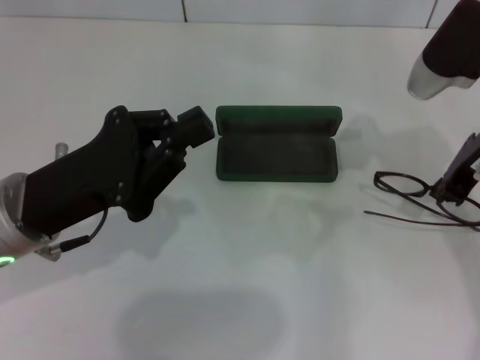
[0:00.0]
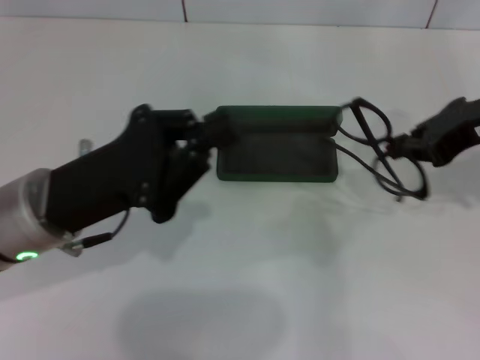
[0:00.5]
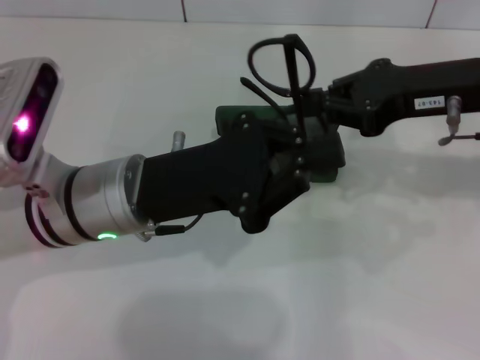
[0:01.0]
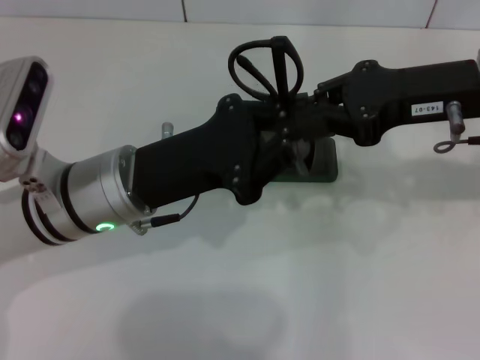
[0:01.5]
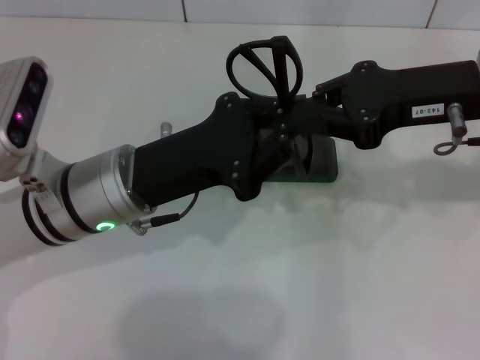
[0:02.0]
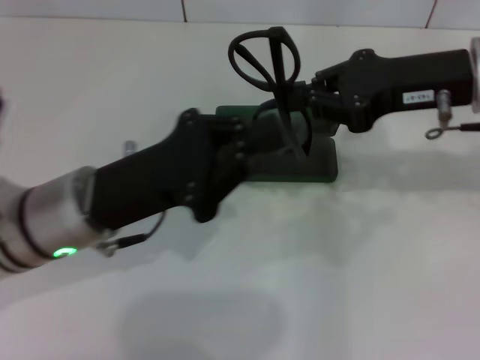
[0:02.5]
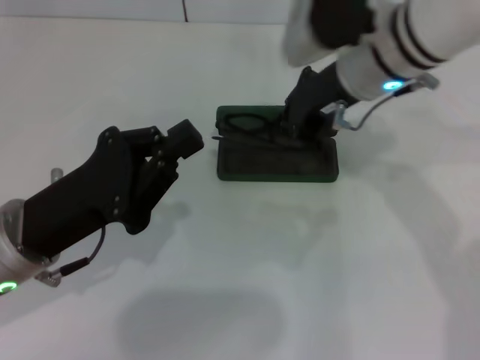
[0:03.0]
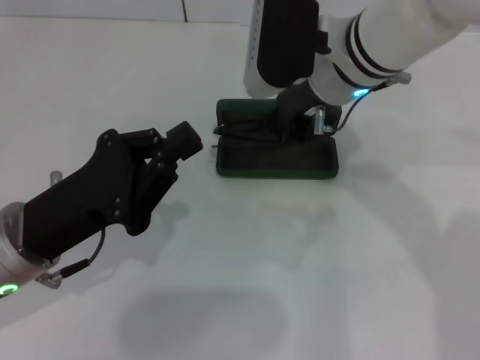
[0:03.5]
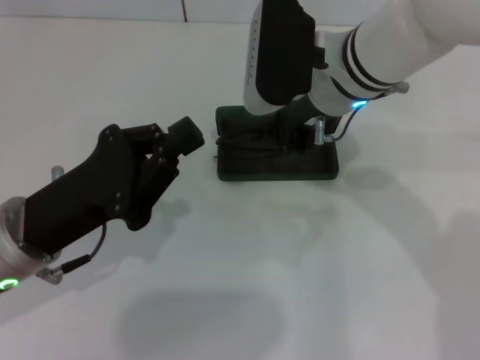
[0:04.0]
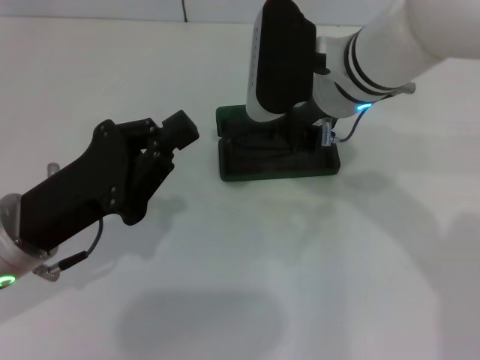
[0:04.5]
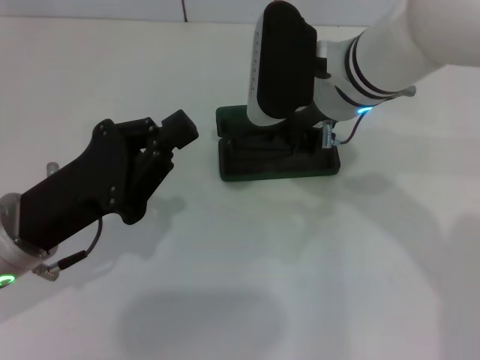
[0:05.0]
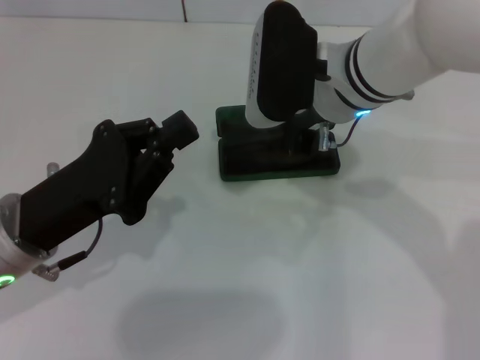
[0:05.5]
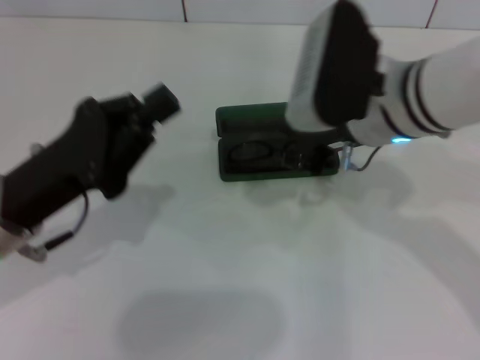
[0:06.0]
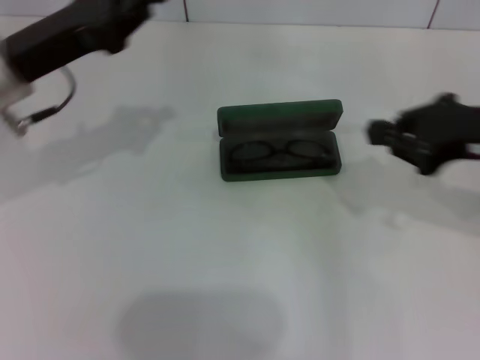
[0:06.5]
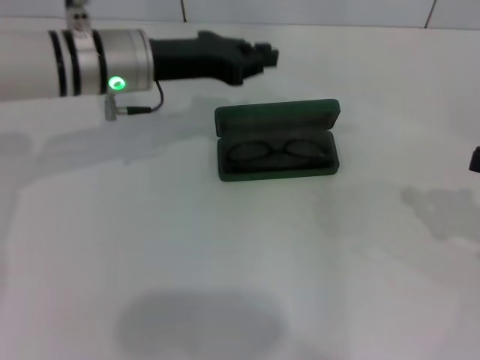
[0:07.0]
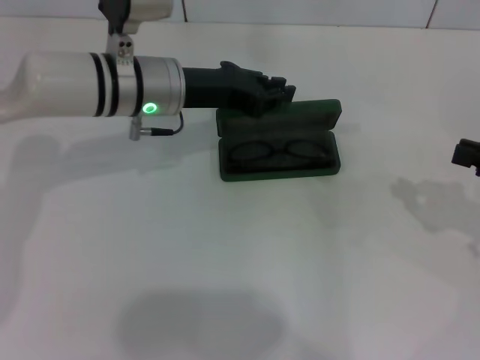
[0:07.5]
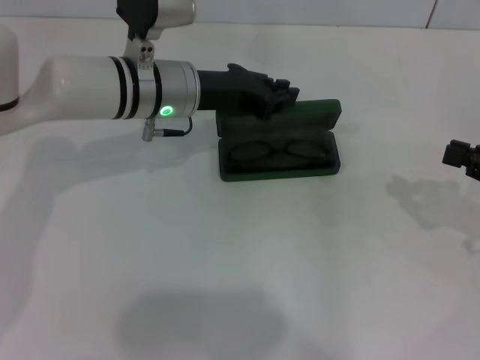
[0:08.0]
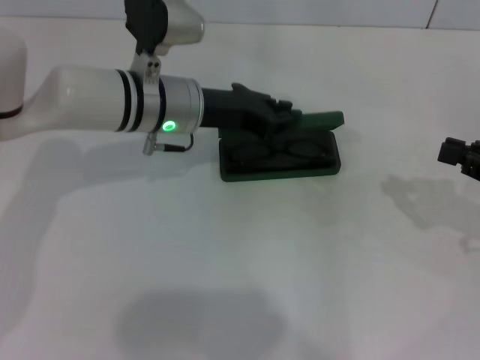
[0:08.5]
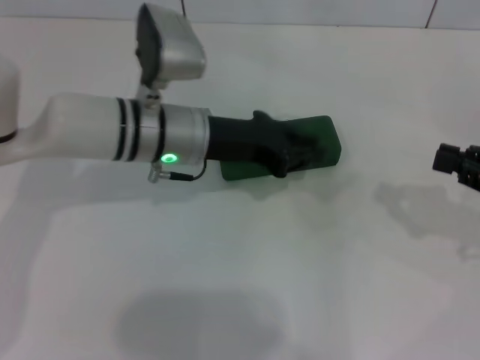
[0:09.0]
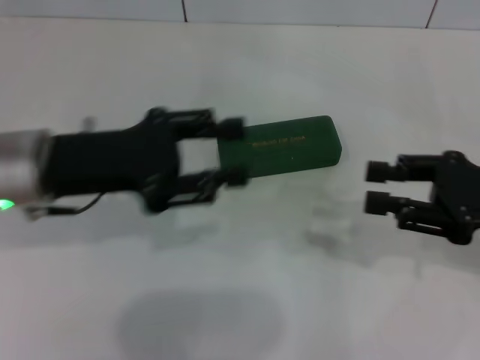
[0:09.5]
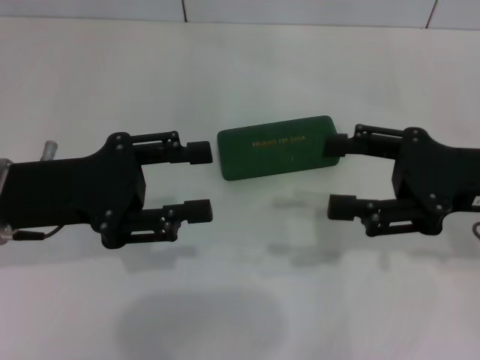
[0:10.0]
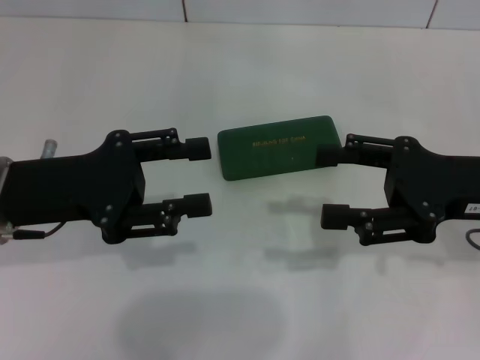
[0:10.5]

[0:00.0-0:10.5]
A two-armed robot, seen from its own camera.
Step, 0:00.0 to 0:02.0: Lift the glasses with your right hand.
Step, 0:02.5 to 0:05.5: Put the glasses into the case with your right hand.
Step, 0:06.0 to 0:08.5: Close the glasses case with your left hand.
0:00.0 to 0:02.0: The left gripper is displaced to the right by some 5 cm.
0:02.0 to 0:04.0: The left gripper heads to the left and backward, covering roughly 10 cm. The right gripper goes approximately 15 cm to the left.
0:04.0 to 0:06.5: The right gripper goes about 20 cm to the right and backward. The left gripper is displaced forward and upward by some 15 cm.
0:06.5 to 0:08.5: The two grippers go some 15 cm to the right and downward.
0:08.5 to 0:10.5: The right gripper is displaced to the left by some 10 cm, and opens its fingers, while the left gripper travels backward and to the left by some 20 cm, and opens its fingers.

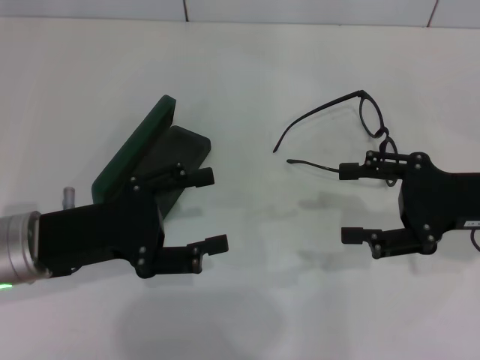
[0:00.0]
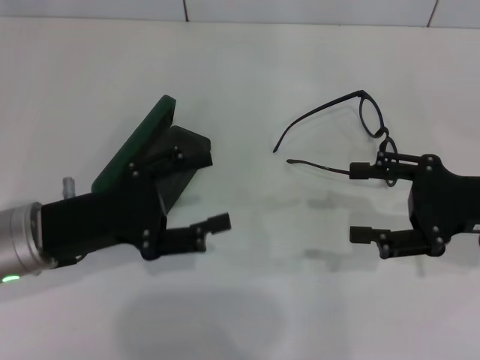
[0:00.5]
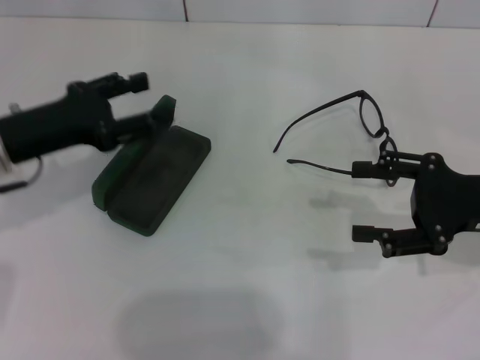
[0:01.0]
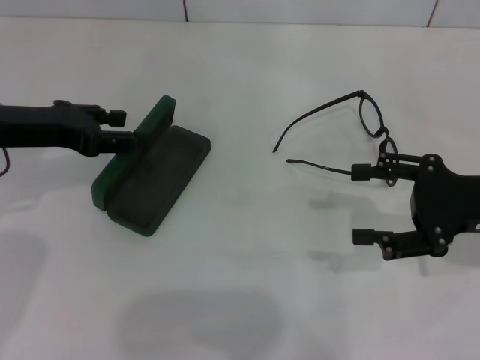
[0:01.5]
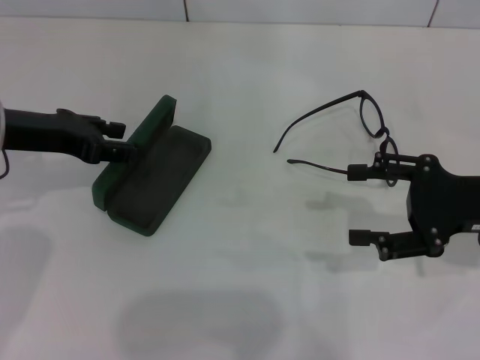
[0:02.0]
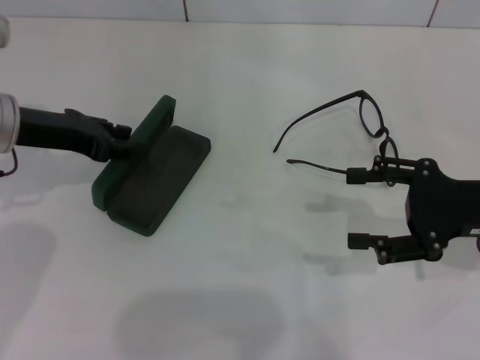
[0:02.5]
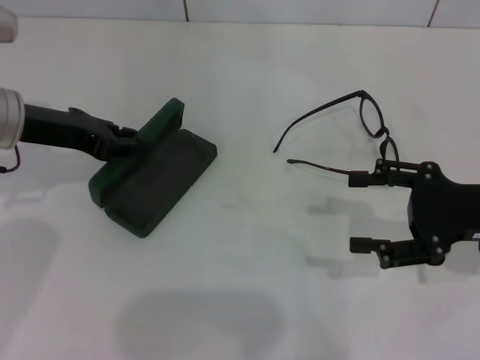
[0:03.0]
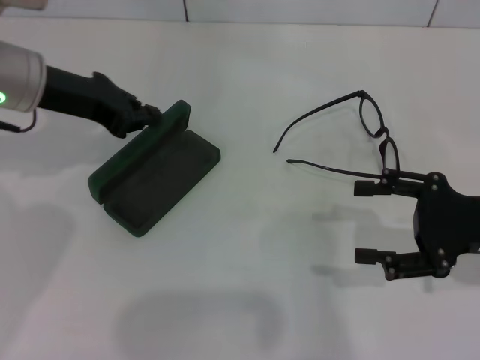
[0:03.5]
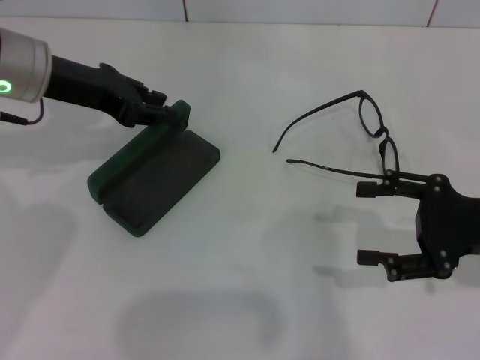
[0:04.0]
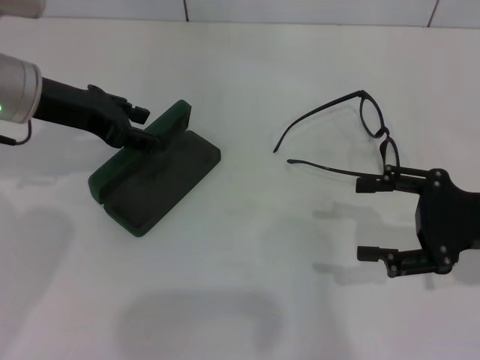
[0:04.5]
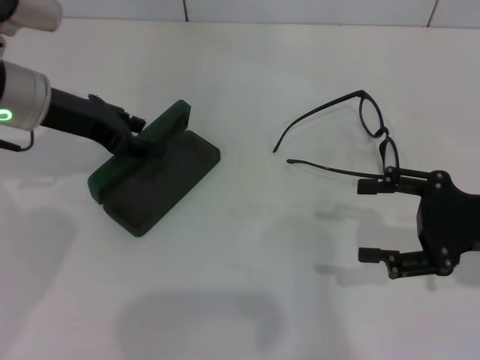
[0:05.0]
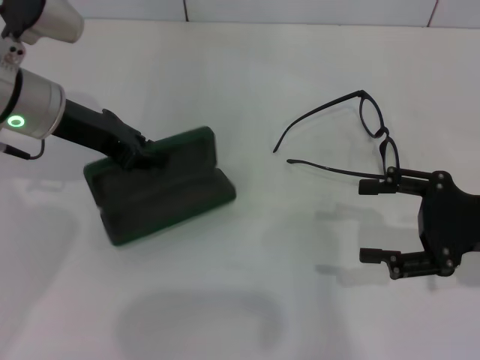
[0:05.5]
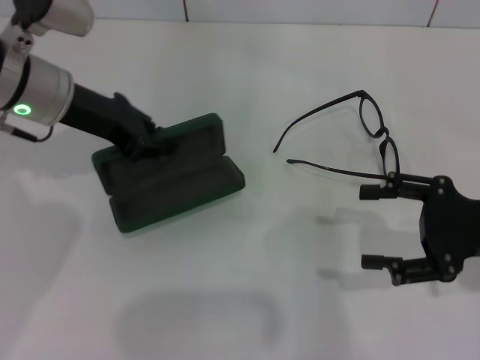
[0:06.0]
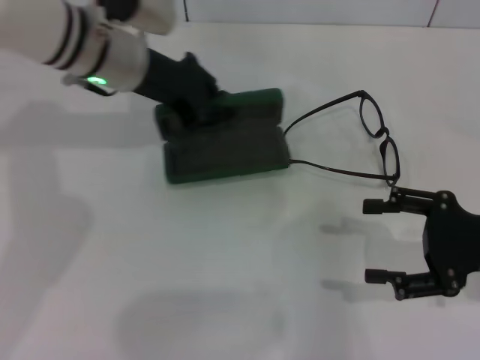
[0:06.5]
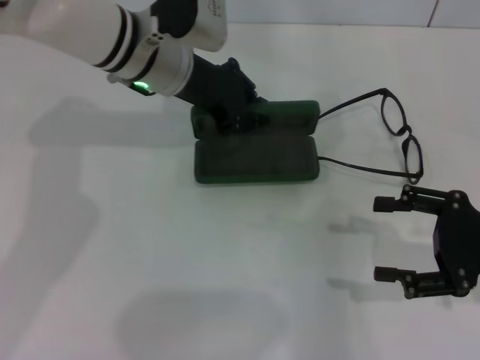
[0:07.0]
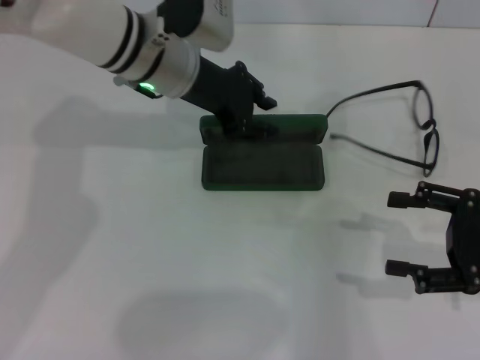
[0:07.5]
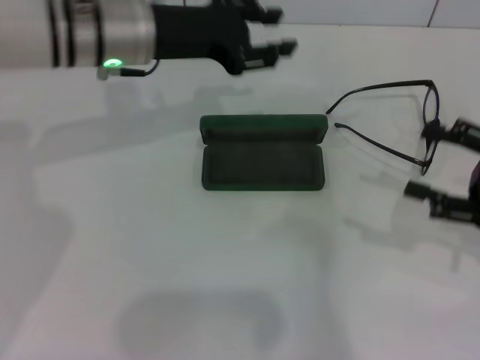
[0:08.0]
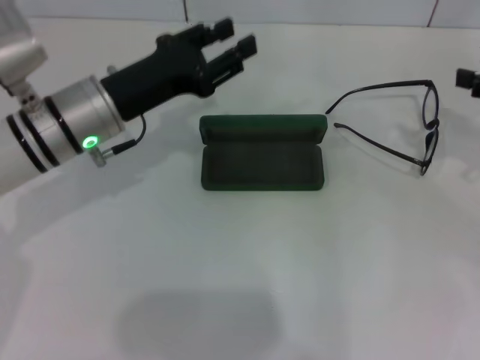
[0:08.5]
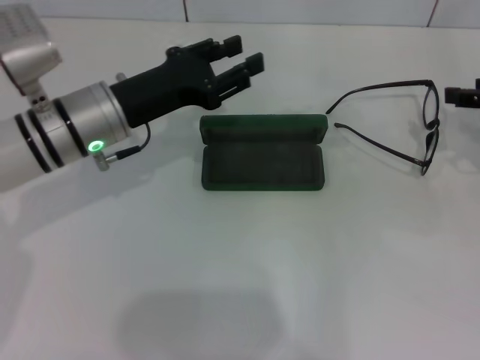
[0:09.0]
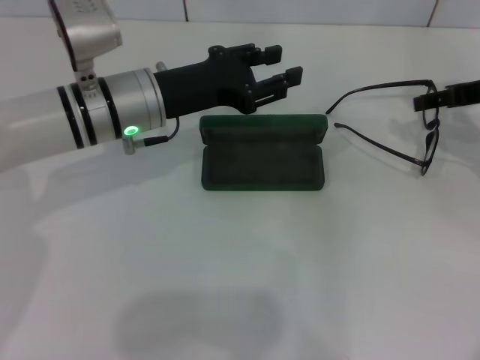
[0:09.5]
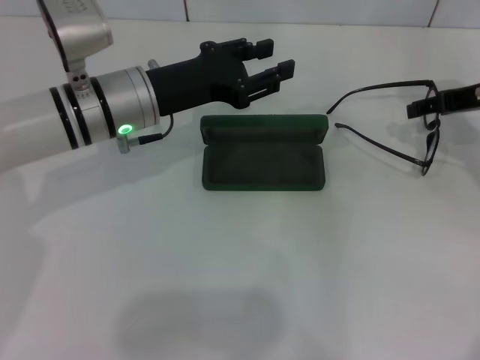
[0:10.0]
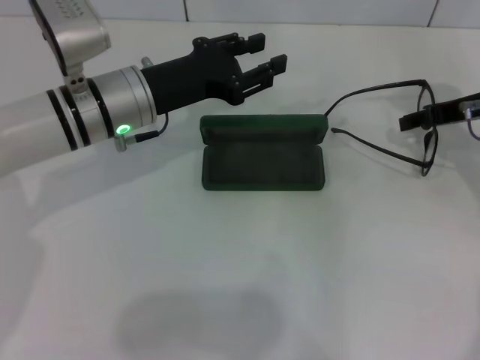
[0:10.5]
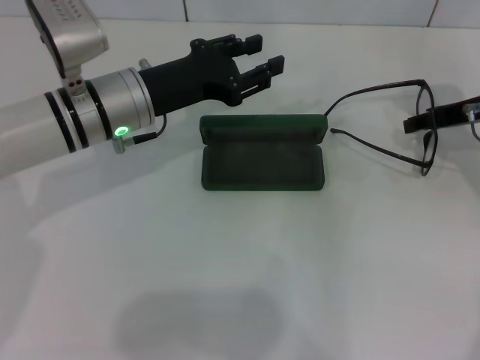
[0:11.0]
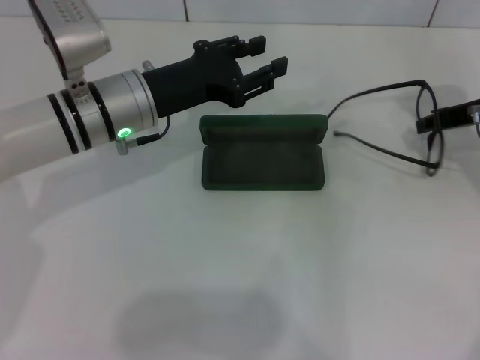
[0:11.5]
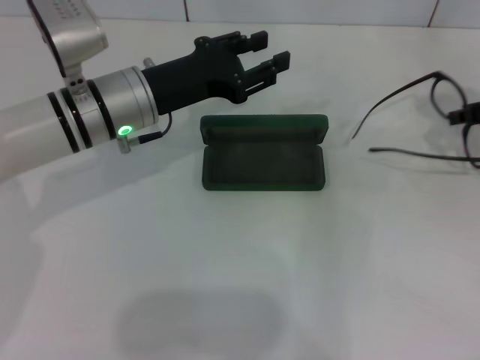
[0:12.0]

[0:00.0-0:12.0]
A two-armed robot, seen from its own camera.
Step, 0:00.0 to 0:05.0: Grab the glasses case with your left hand.
Step, 0:05.5 to 0:07.5: Place the glasses case in the center of the table with your left hand.
Step, 0:08.0 to 0:11.5: Grab the eyeglass frame with your right hand.
0:00.0 to 0:02.0: The left gripper travels forward and upward by some 10 cm.
0:02.0 to 0:04.0: The left gripper shifts by approximately 5 cm, and closes its fingers.
0:04.0 to 0:06.0: The left gripper opens, then closes again.
0:06.0 to 0:08.0: The left gripper goes about 5 cm to the right, and opens.
0:08.0 to 0:10.0: The right gripper travels forward by roughly 15 cm; the left gripper goes some 5 cm downward.
0:10.0 to 0:12.0: The right gripper closes up.

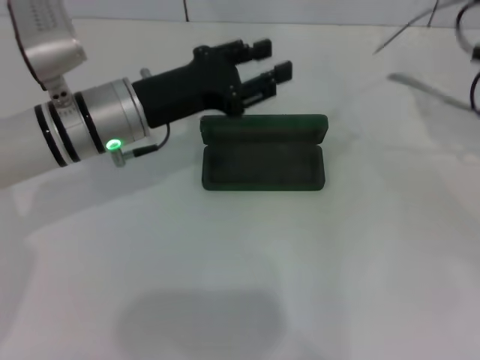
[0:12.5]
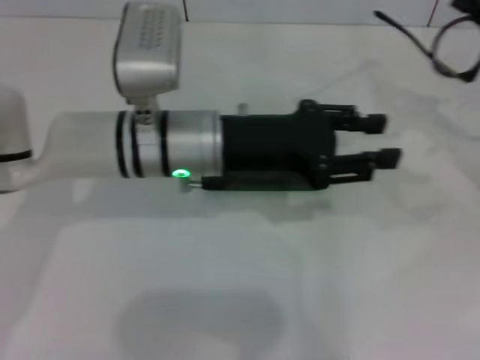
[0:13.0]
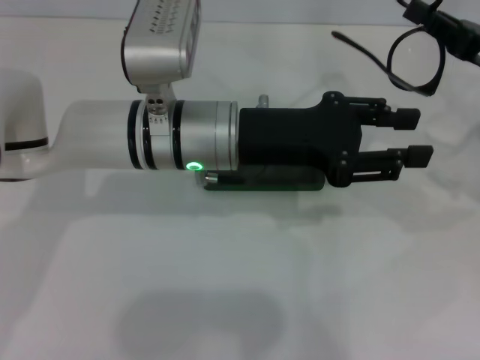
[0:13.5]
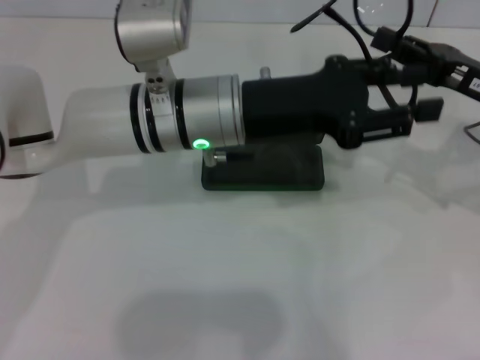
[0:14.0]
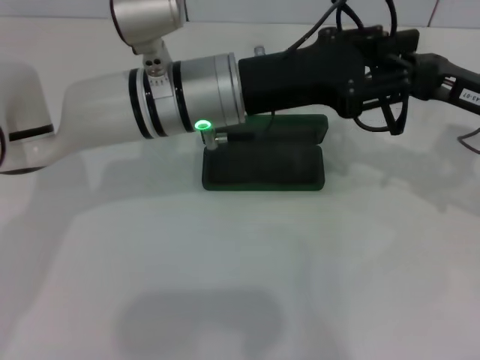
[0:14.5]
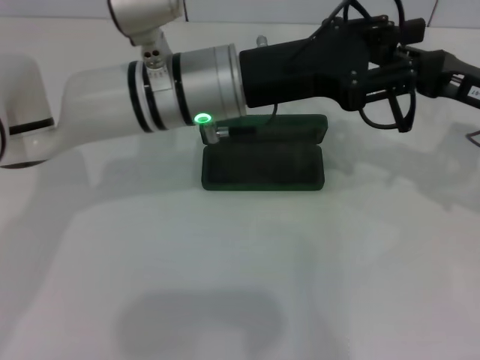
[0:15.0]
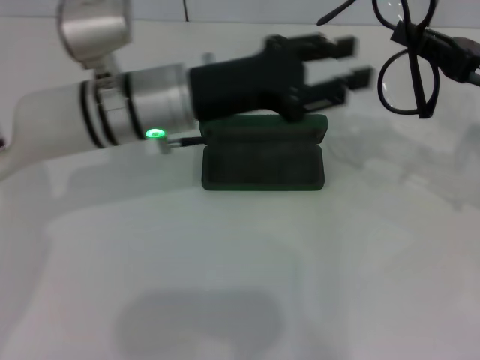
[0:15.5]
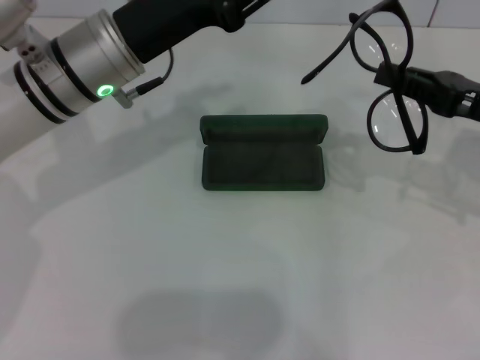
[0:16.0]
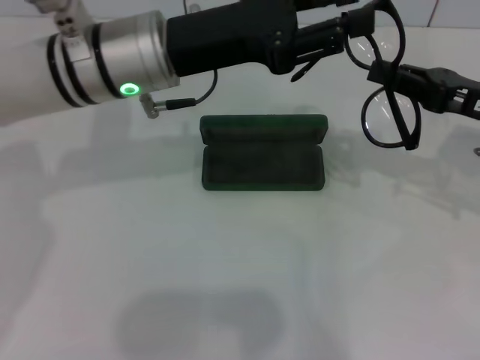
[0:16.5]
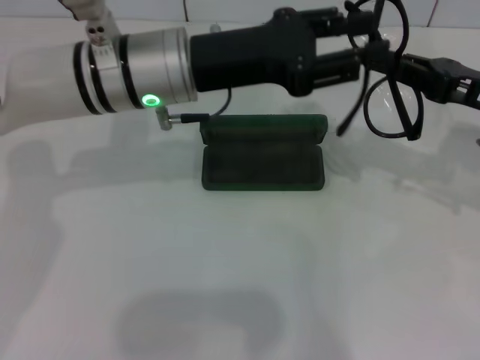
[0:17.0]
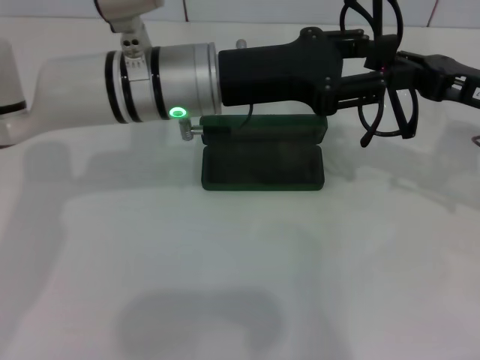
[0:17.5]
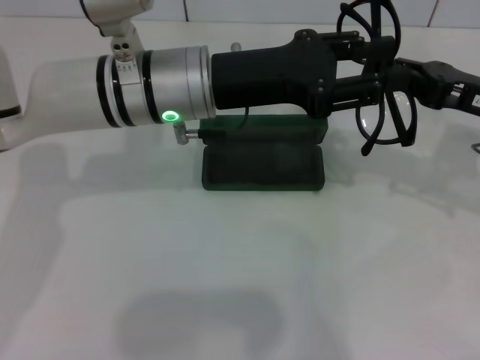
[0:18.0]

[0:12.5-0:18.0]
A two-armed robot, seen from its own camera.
0:12.5 to 0:14.5: The left gripper is displaced to the right by about 10 cm; the right gripper shifts about 10 cm to the left.
0:14.5 to 0:16.0: The left gripper goes about 10 cm to the left.
0:16.0 to 0:18.0: The left gripper travels to the right by about 5 cm.
